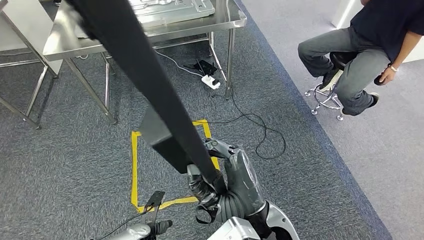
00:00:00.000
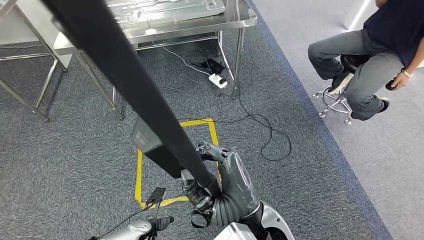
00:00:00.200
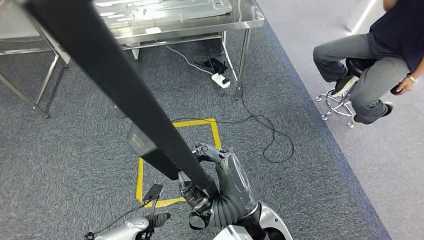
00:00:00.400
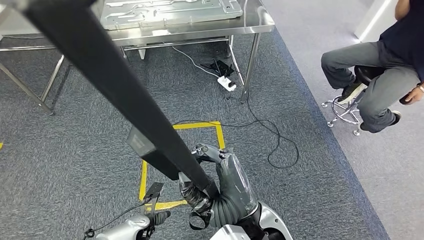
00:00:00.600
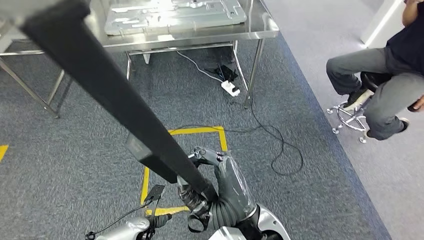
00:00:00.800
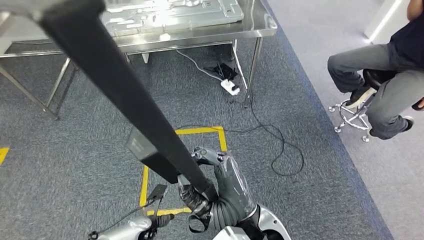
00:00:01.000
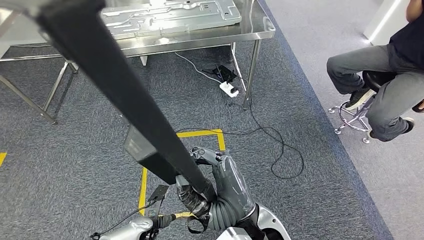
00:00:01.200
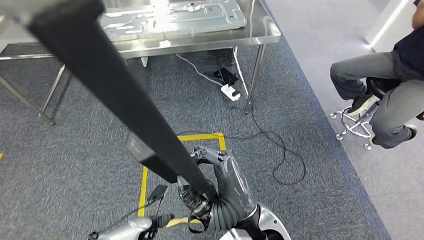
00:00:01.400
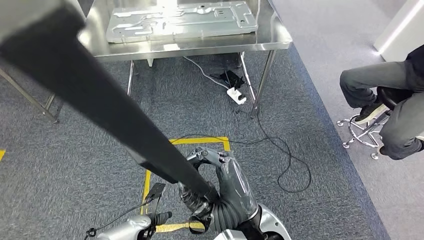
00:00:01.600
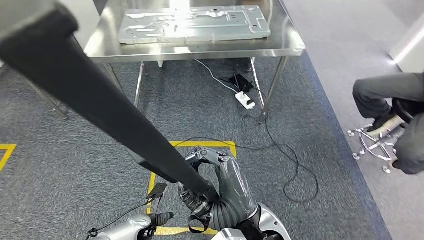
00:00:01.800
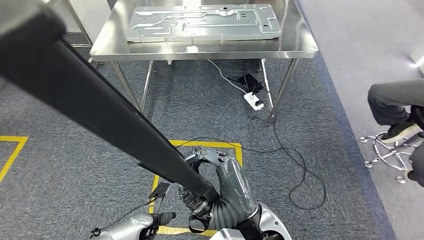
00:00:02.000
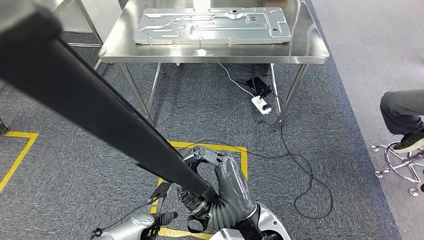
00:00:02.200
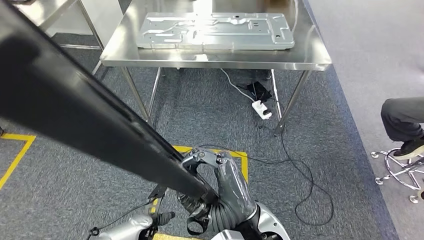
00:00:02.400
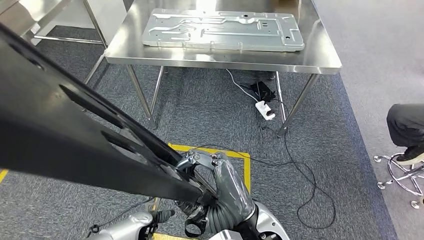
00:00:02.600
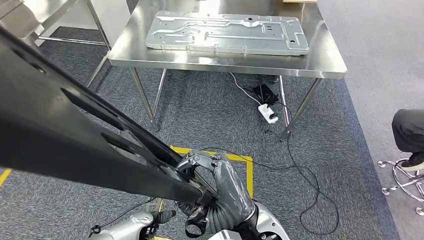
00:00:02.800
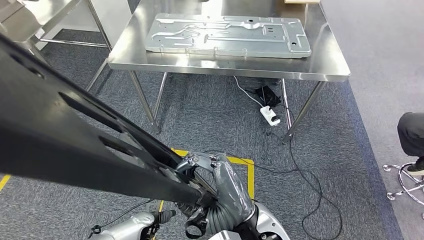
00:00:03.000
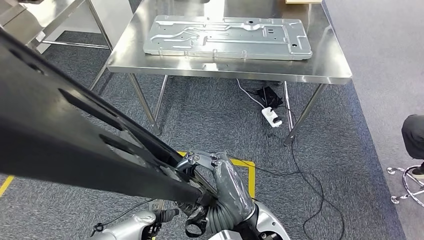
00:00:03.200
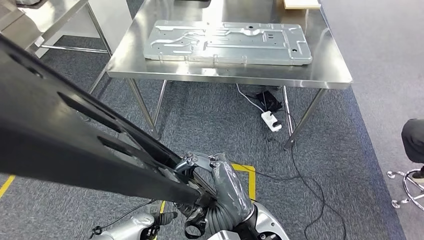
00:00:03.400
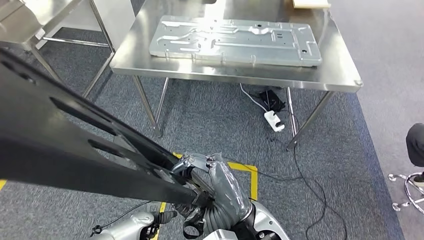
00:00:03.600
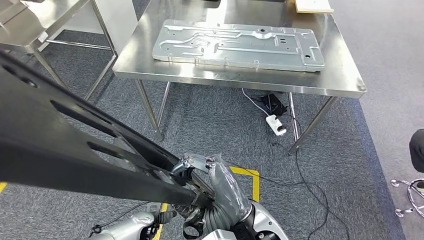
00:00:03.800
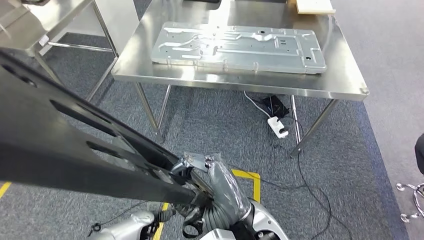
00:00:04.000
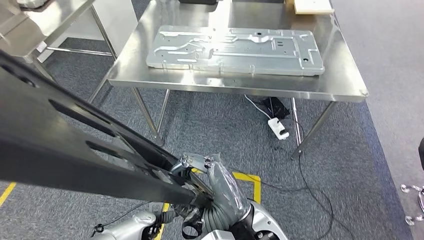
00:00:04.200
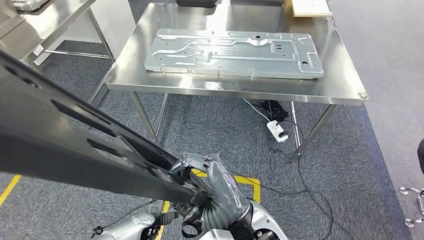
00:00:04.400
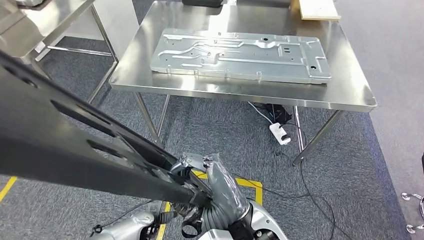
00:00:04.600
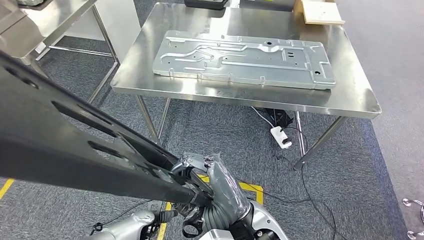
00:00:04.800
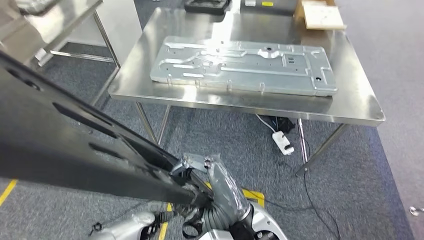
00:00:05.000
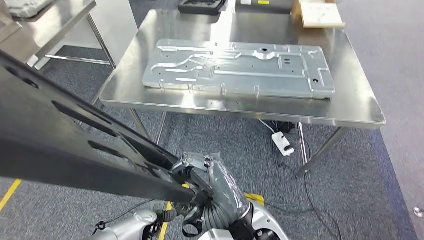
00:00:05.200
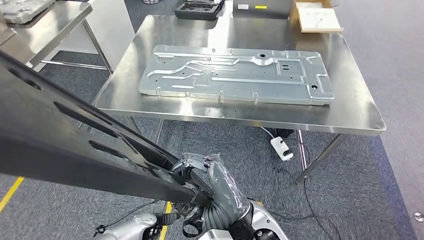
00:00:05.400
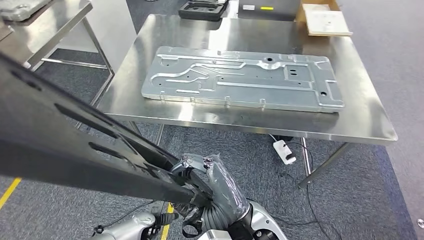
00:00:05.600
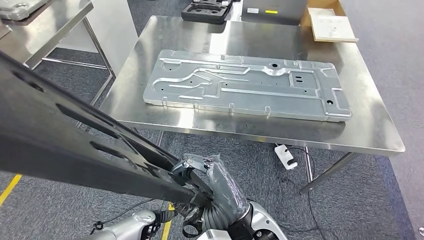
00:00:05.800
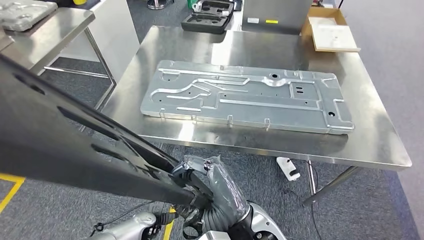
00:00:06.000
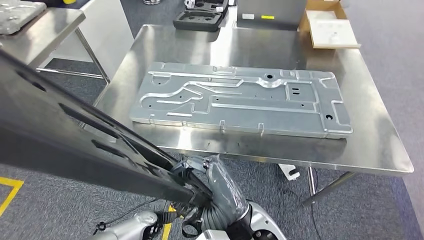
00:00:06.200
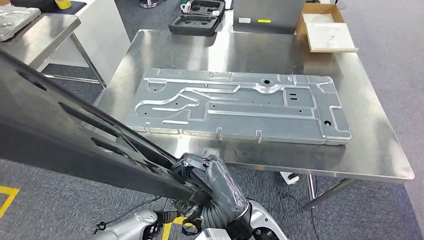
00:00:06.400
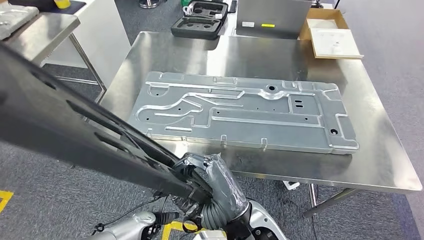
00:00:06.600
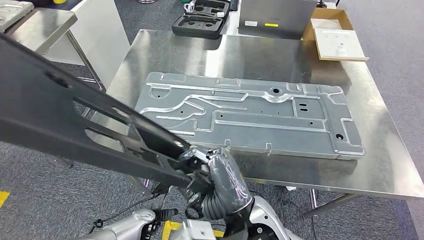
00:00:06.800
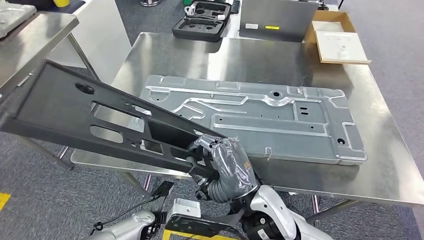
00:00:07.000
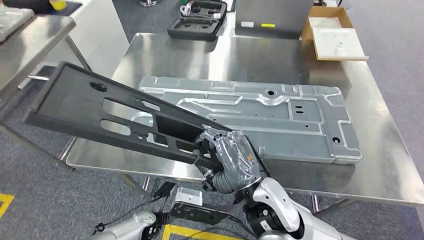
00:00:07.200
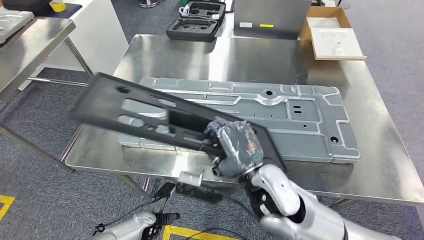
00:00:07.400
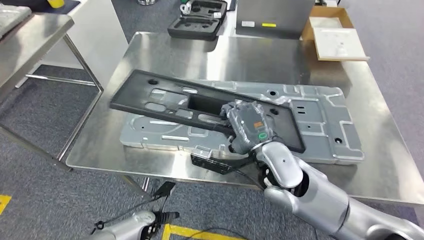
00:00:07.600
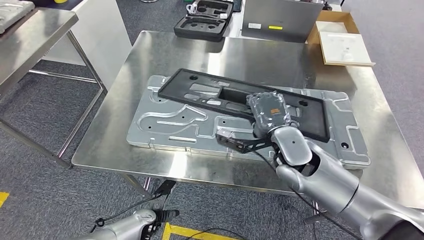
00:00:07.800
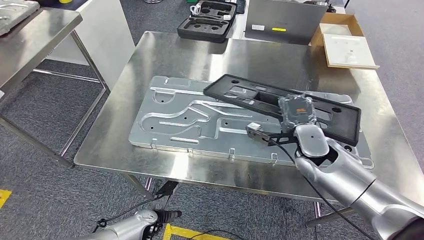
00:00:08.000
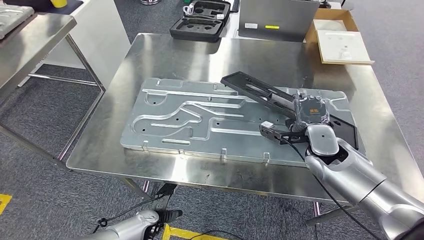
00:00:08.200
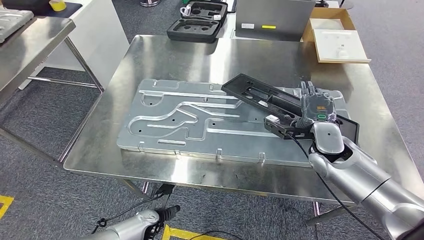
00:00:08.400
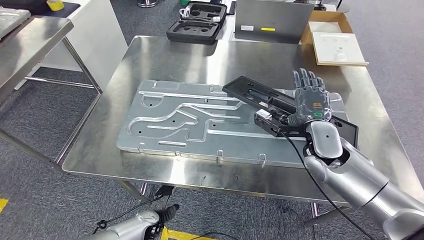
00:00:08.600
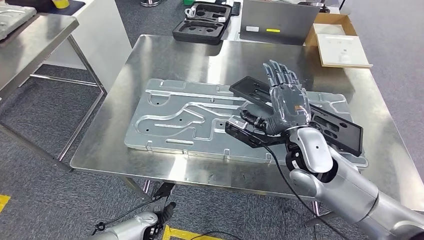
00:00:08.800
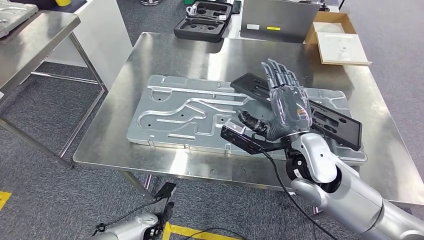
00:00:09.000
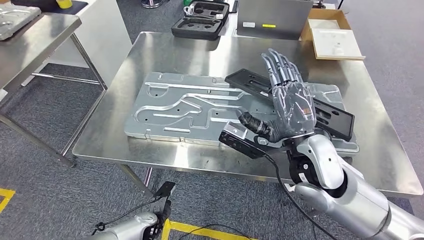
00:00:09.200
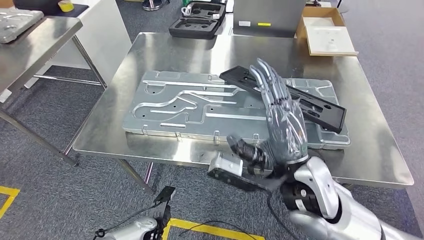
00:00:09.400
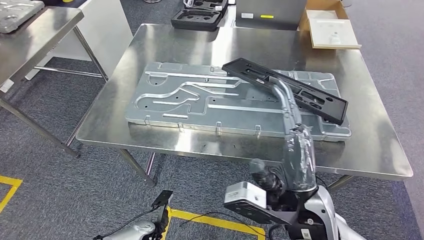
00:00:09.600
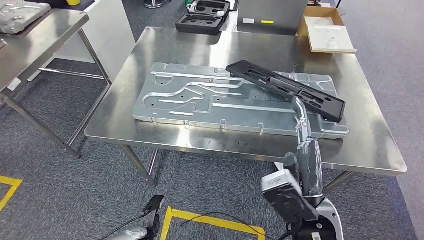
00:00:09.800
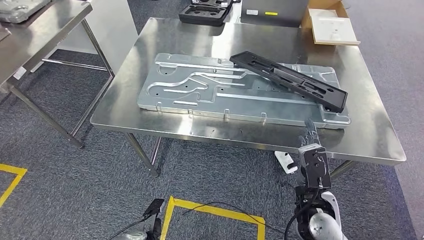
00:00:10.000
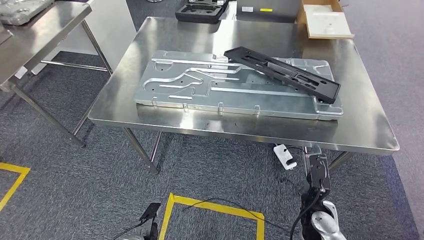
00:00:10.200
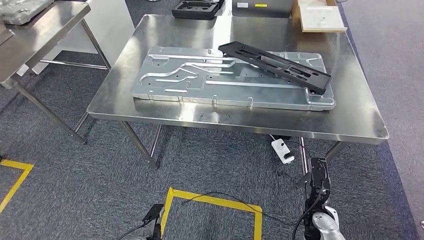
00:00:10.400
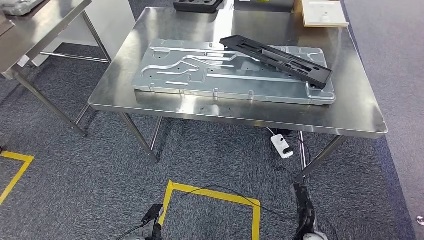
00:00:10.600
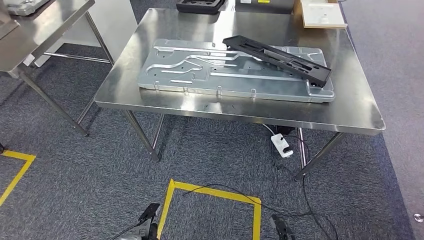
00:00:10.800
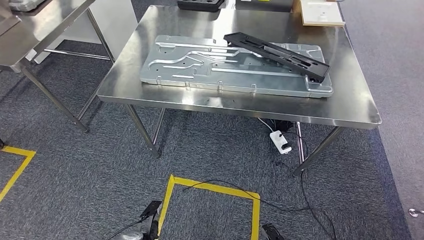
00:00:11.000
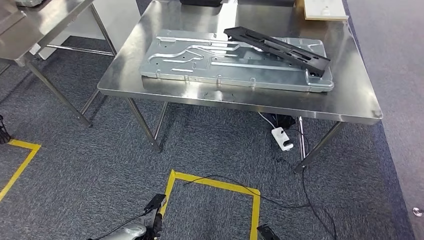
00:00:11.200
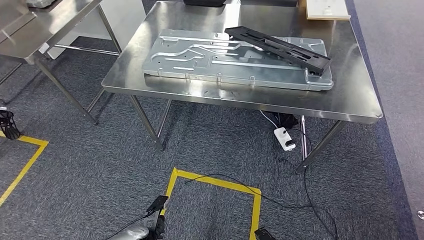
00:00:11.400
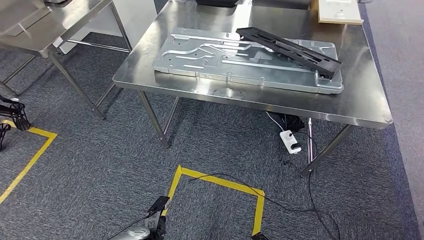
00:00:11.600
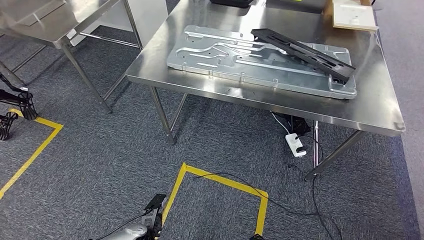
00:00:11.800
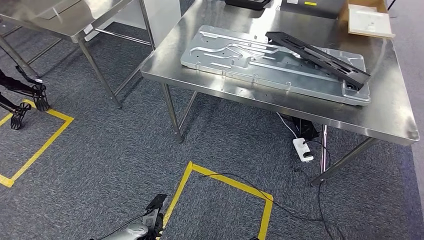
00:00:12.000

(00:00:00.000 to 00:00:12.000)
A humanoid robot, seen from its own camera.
Step, 00:00:01.400 - 00:00:10.400: Insert the large material into the corresponding slot on the workbench.

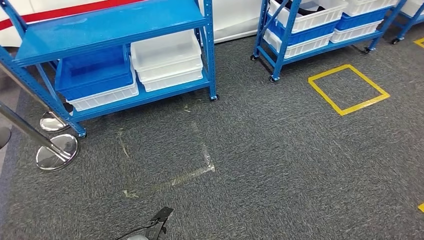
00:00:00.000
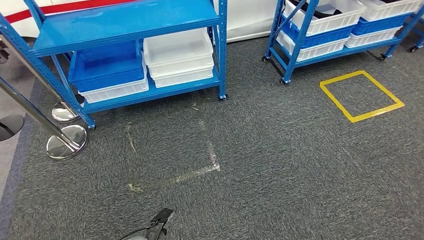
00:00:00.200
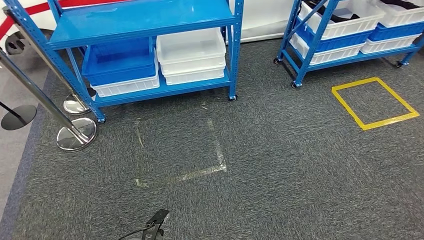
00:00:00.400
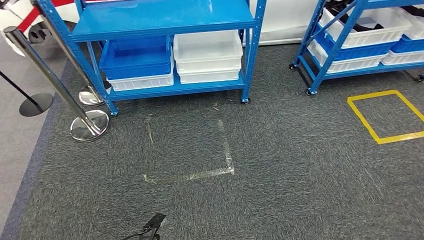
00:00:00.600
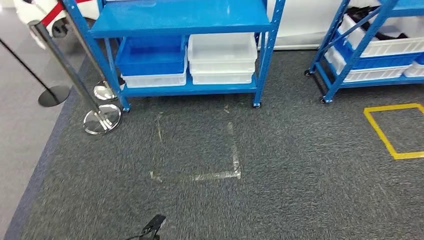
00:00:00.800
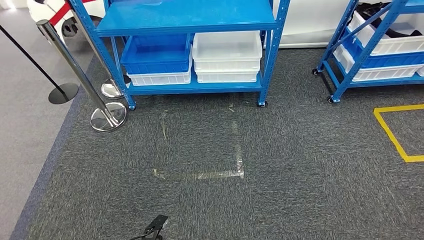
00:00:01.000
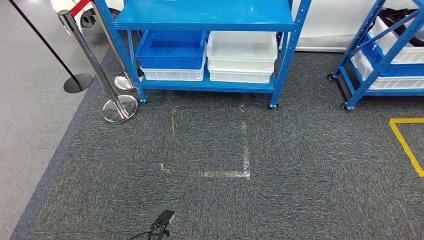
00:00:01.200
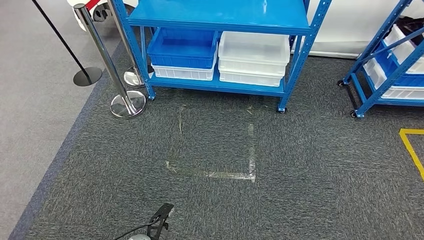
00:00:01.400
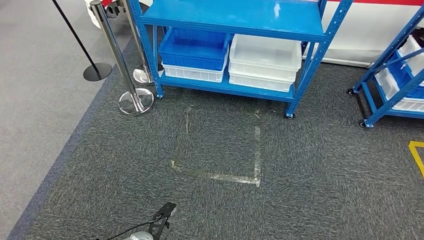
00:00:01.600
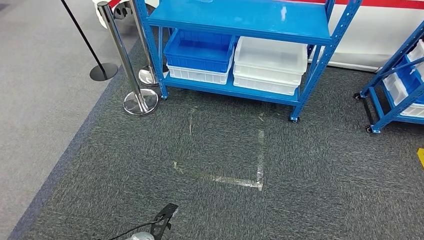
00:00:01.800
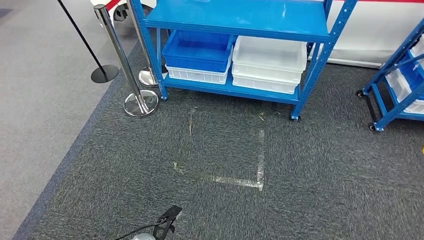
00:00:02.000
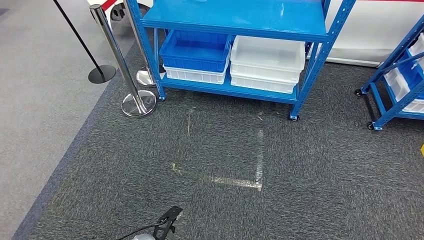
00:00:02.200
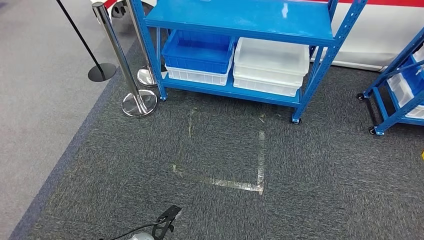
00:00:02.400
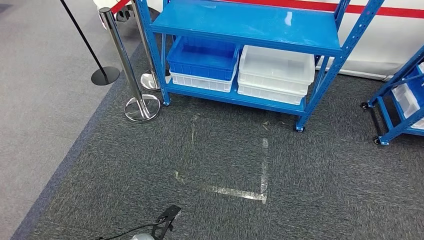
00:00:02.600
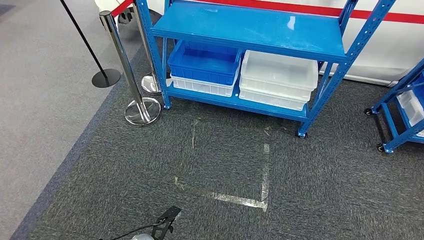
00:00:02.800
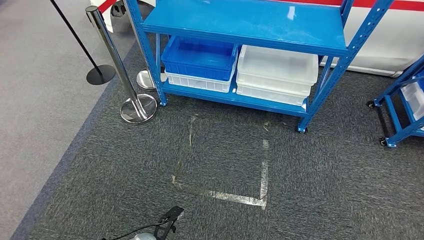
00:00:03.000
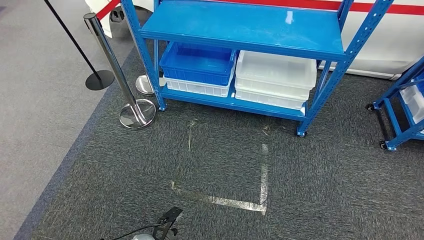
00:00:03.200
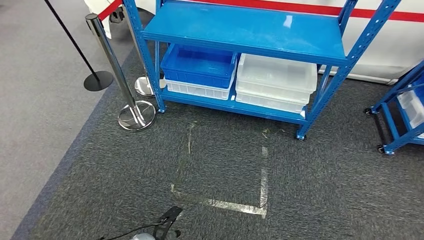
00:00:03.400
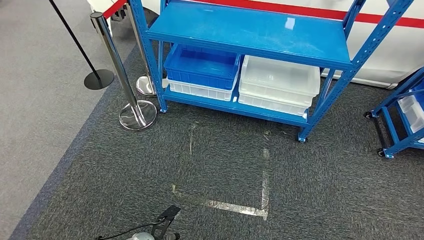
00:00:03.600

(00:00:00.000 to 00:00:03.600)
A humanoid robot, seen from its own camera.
Step, 00:00:00.000 - 00:00:03.600: Move to the initial position of the shelf.
